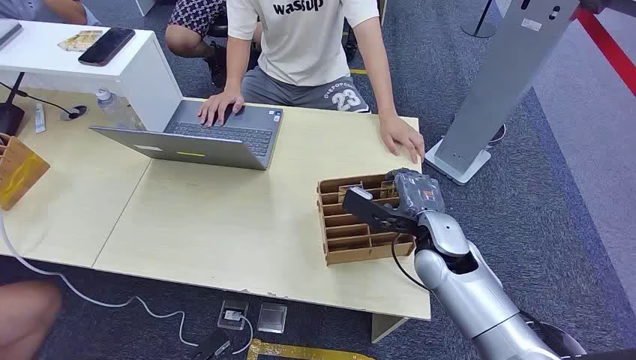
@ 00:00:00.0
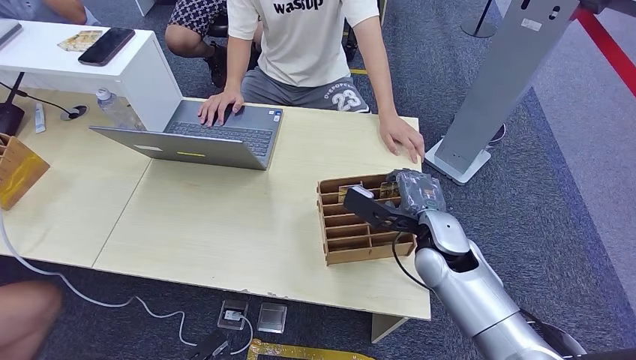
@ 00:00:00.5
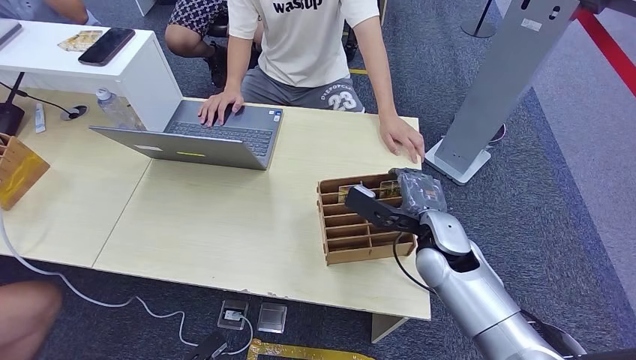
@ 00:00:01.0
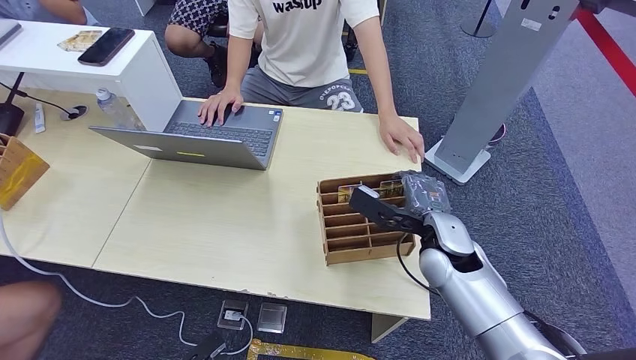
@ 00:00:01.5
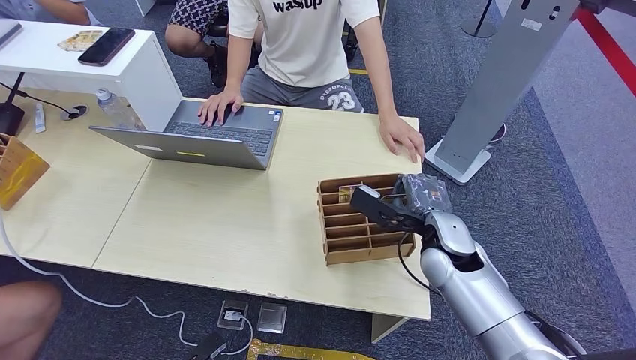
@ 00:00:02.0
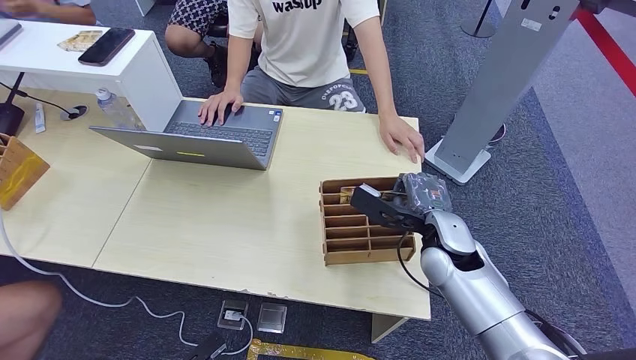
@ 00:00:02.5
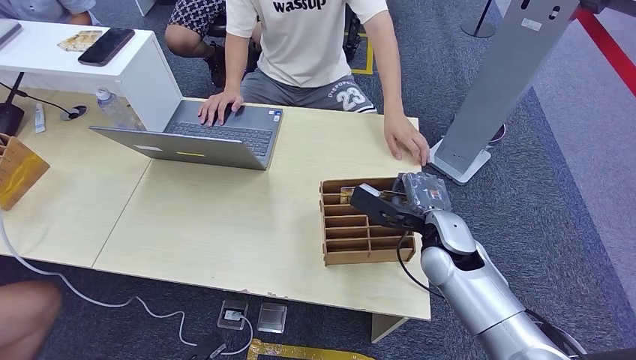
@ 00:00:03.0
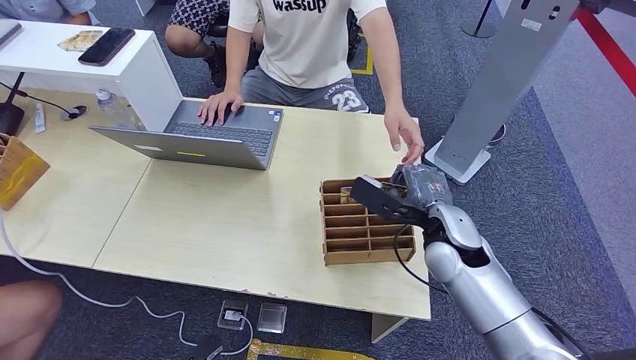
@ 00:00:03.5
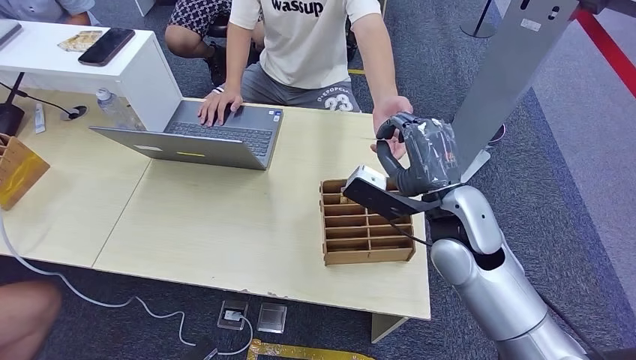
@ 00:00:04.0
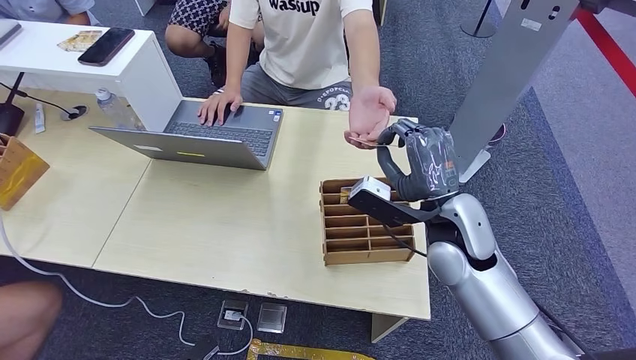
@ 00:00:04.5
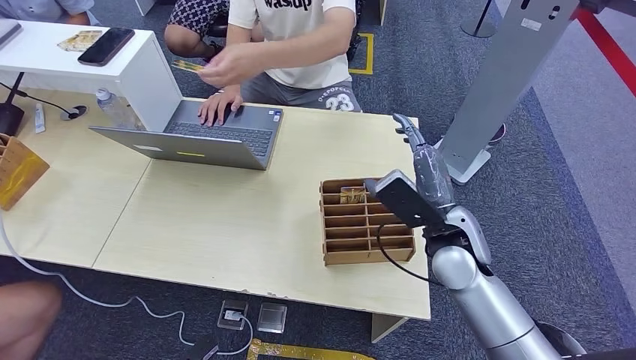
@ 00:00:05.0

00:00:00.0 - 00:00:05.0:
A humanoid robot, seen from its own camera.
Step, 00:00:00.0 - 00:00:03.5: Pick up the key card from the card box.
Step, 00:00:04.0 - 00:00:05.0: Hand the key card to the target.

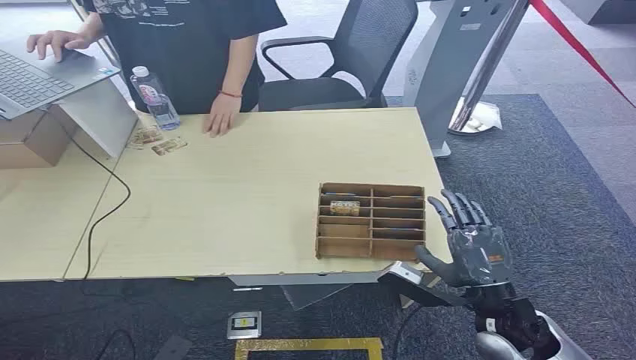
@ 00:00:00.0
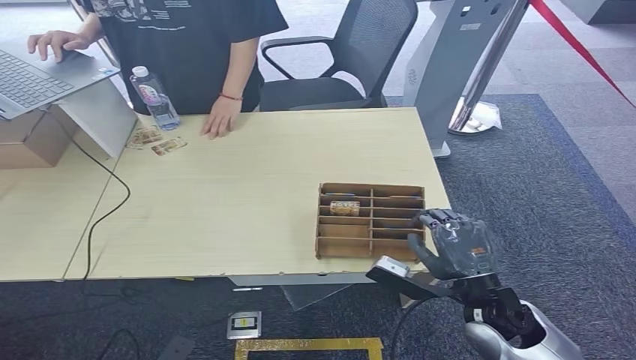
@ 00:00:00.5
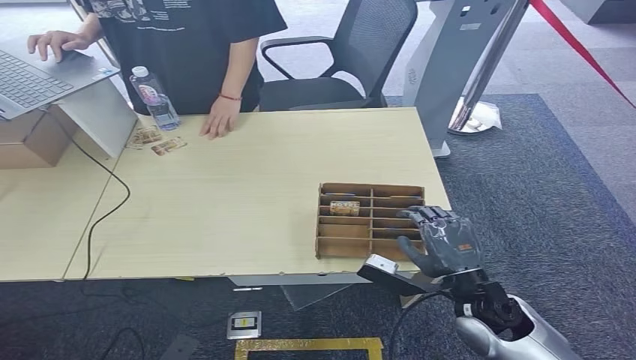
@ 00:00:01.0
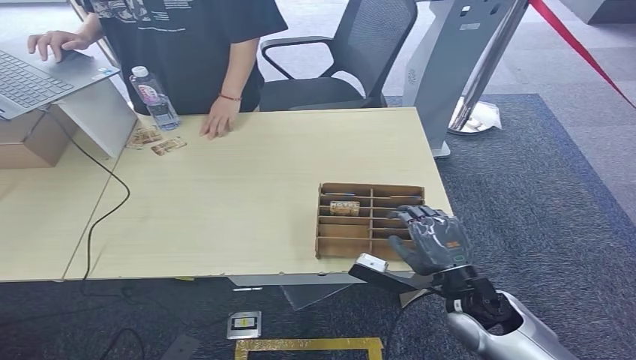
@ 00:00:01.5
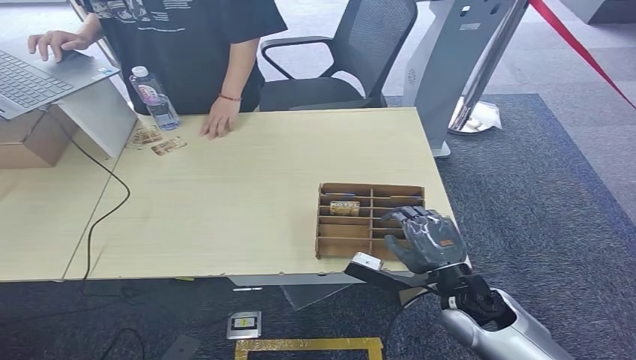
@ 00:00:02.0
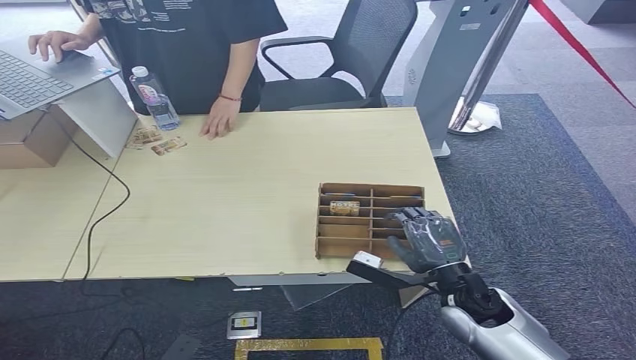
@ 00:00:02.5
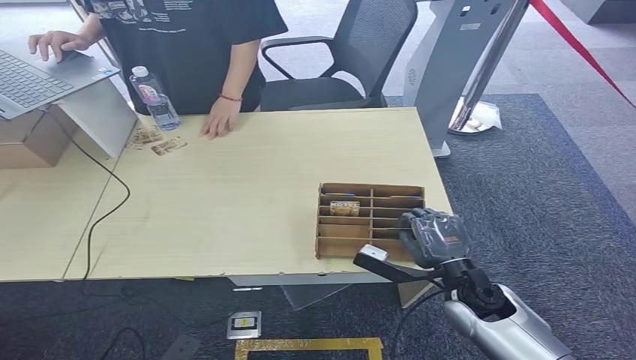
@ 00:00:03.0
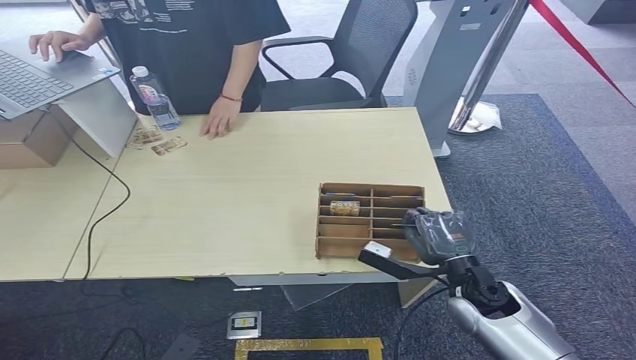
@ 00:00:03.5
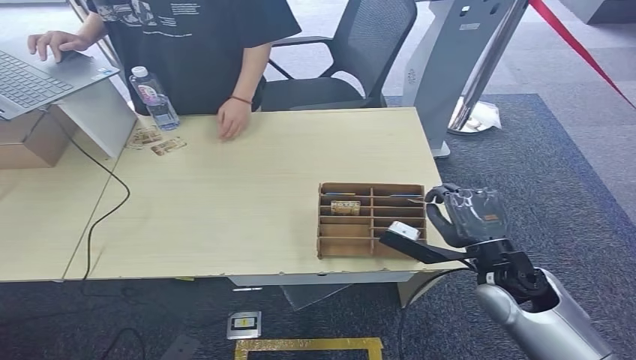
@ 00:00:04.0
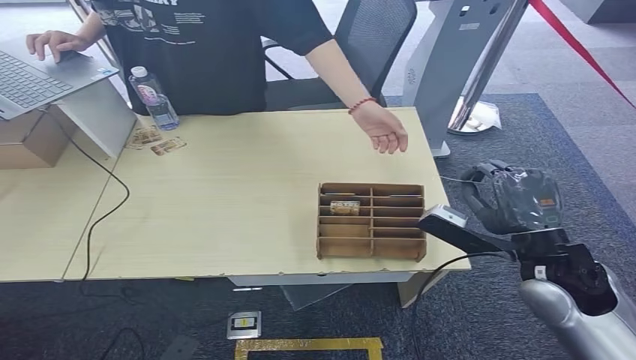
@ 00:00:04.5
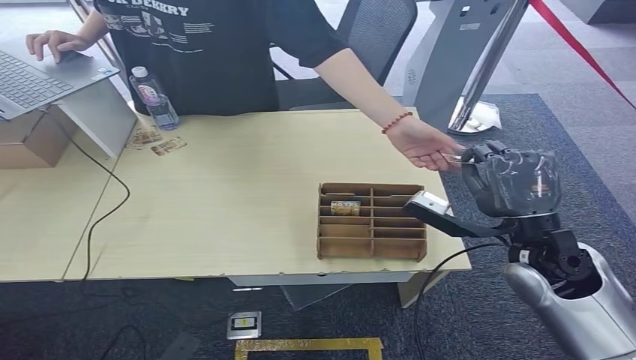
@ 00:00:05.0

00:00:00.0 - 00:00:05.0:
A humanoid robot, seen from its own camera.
Step, 00:00:00.0 - 00:00:04.0: Pick up the key card from the card box.
Step, 00:00:04.5 - 00:00:05.0: Hand the key card to the target.
00:00:02.5 - 00:00:05.0: The right hand is displaced upward and to the right by roughly 15 cm.
